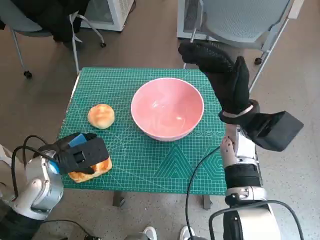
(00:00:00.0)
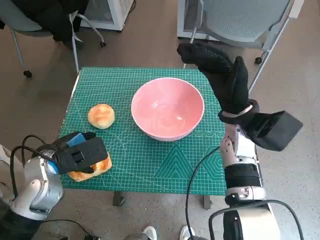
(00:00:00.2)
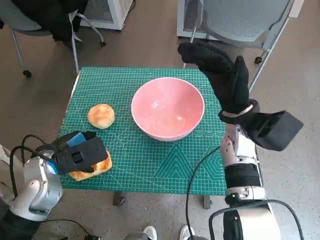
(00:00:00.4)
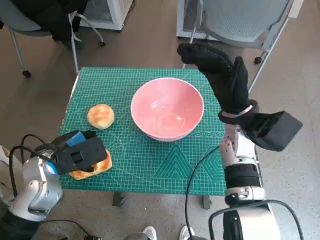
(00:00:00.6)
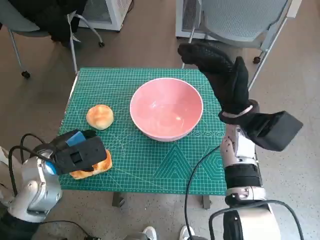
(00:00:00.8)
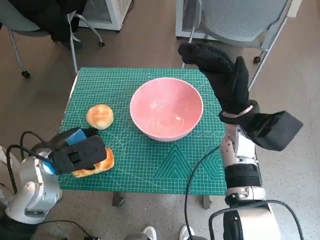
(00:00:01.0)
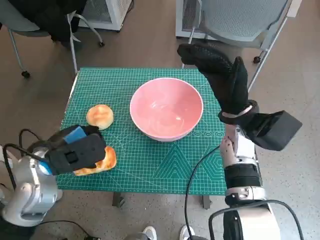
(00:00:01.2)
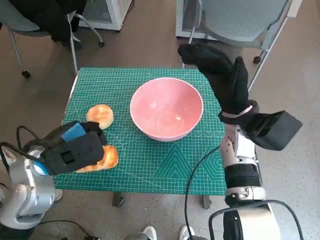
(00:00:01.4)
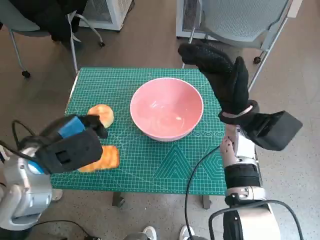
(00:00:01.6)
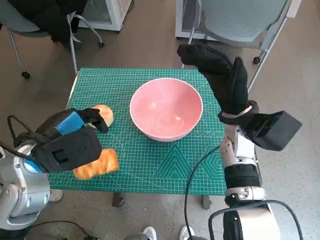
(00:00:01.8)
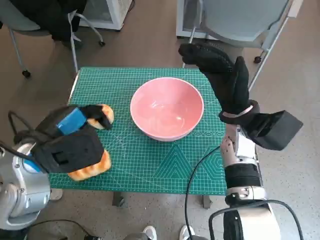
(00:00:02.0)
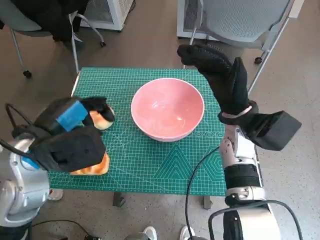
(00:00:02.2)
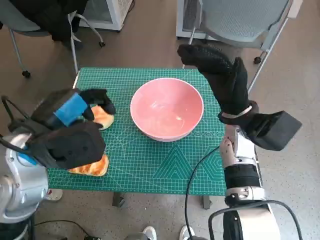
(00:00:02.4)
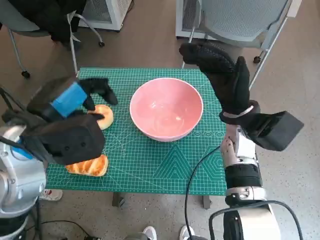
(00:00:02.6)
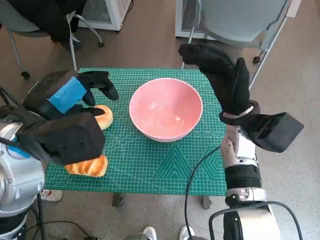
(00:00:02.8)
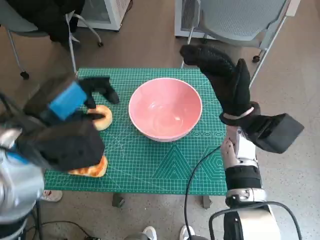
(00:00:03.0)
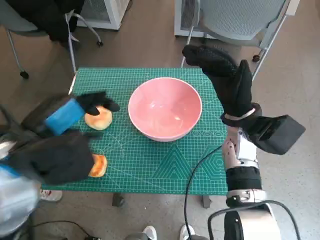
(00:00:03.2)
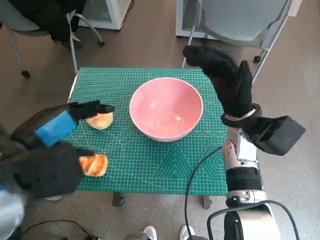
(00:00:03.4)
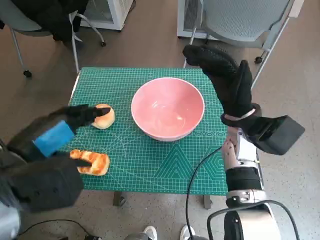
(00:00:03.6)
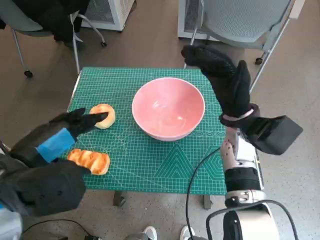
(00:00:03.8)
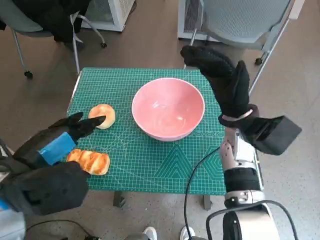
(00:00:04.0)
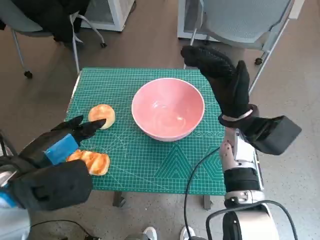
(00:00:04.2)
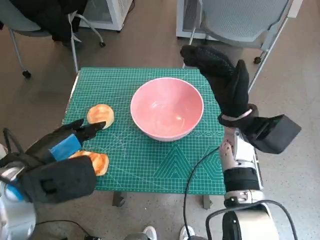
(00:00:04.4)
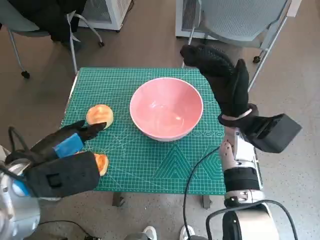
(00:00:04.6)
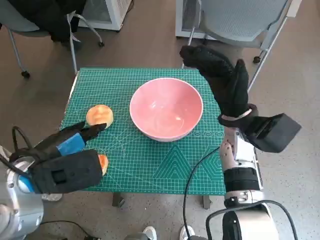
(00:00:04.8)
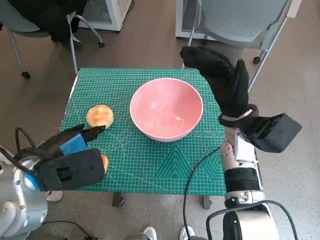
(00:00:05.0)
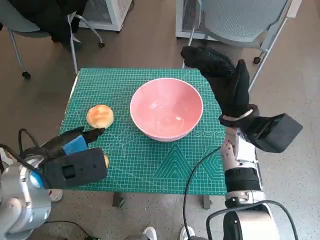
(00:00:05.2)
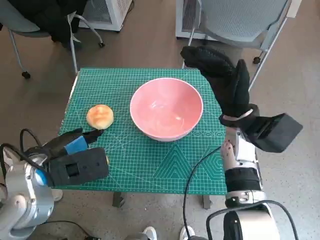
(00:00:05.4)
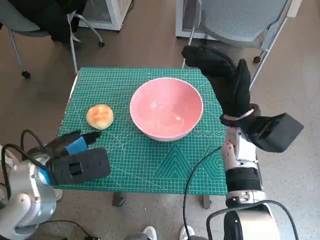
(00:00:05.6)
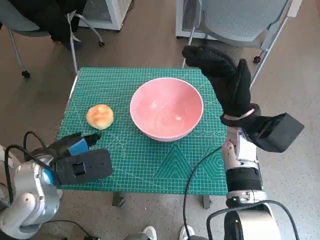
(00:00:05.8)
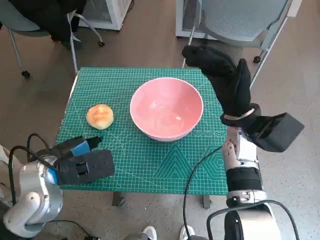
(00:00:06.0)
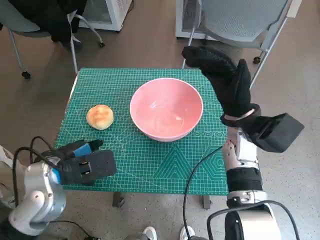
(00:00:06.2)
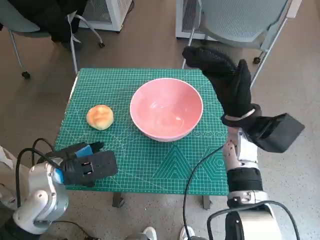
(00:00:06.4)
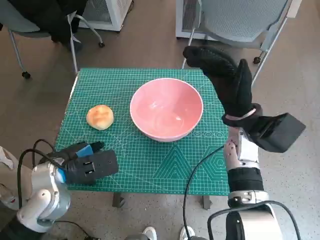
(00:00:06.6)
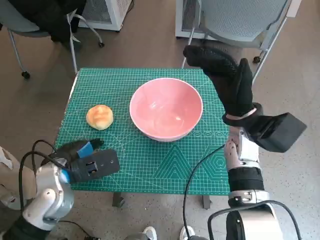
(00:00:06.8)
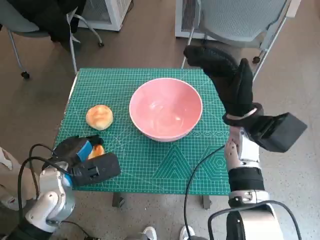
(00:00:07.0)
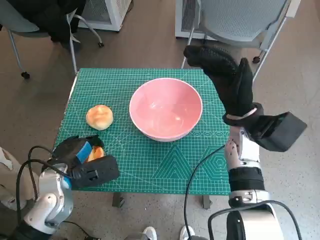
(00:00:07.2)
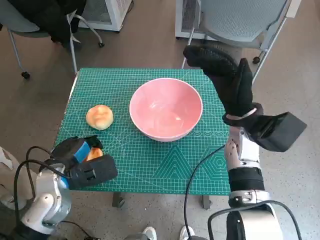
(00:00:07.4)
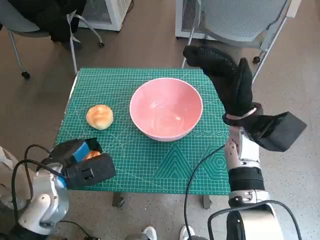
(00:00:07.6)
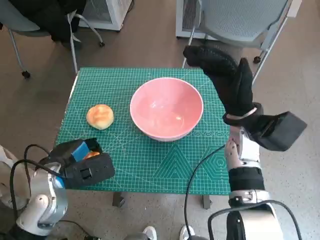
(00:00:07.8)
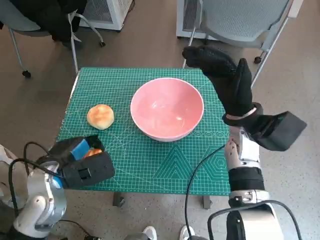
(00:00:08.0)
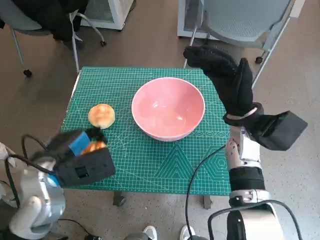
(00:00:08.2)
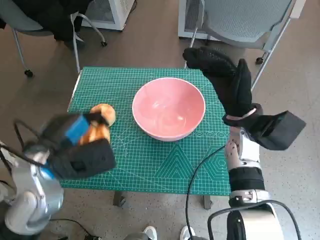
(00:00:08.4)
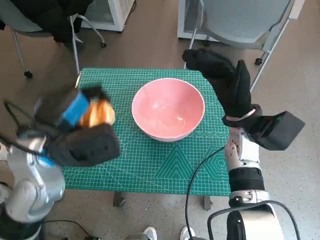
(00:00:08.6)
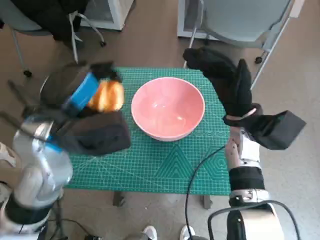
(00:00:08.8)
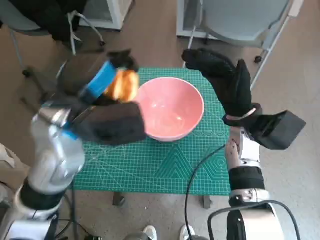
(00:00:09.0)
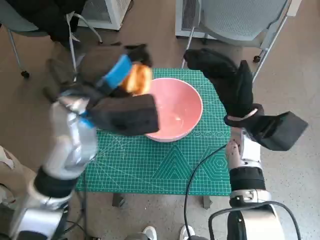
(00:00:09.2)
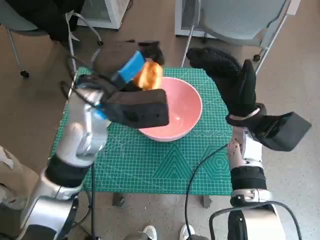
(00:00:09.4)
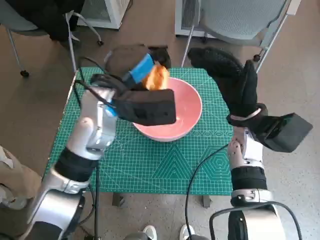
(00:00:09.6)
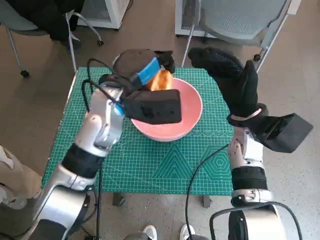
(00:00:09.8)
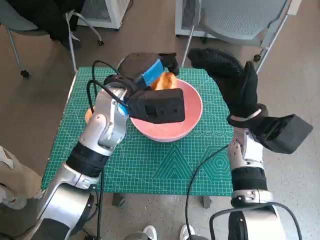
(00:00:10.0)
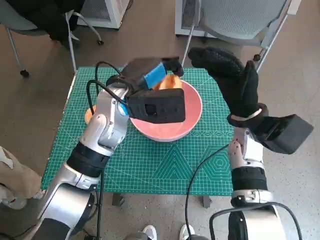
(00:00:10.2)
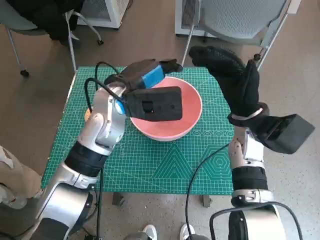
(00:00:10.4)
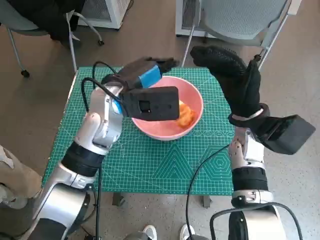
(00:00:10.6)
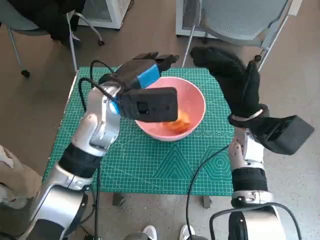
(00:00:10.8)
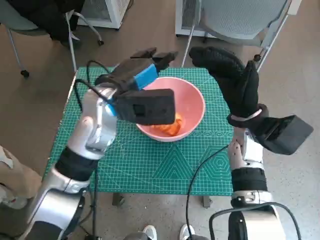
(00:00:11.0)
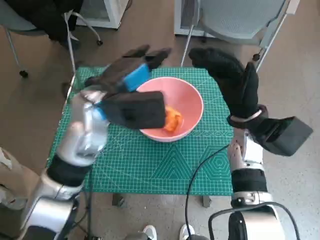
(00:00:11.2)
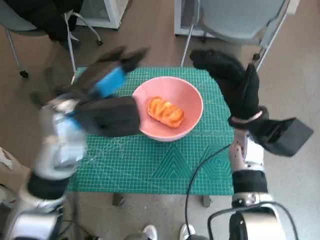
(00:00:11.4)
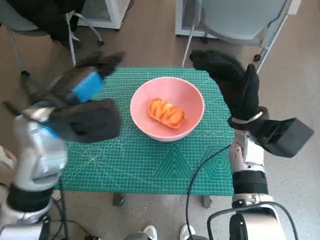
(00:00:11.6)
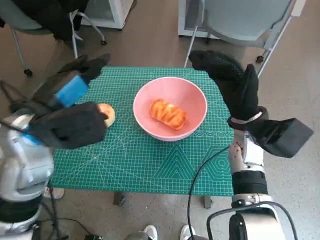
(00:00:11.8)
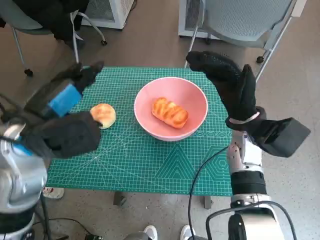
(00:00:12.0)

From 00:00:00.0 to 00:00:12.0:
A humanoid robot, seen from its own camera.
Step, from 00:00:00.0 to 00:00:07.6: Grasp the long bread with left hand.
Step, from 00:00:07.8 to 00:00:10.4: Place the long bread in pink bowl with left hand.
From 00:00:00.0 to 00:00:01.6: The left hand travels upward by some 5 cm.
From 00:00:01.6 to 00:00:03.0: The left hand travels upward by approximately 10 cm.
From 00:00:03.0 to 00:00:04.4: The left hand moves some 5 cm.
From 00:00:04.4 to 00:00:06.0: The left hand shifts some 5 cm downward.
From 00:00:06.0 to 00:00:07.6: The left hand travels downward by roughly 5 cm.
From 00:00:07.6 to 00:00:09.0: The left hand shifts about 15 cm upward and to the right.
From 00:00:09.0 to 00:00:10.4: The left hand heads forward and to the right, covering roughly 10 cm.
From 00:00:10.4 to 00:00:12.0: The left hand heads to the left and backward, covering some 15 cm.

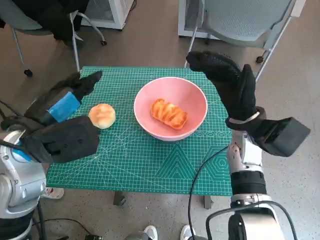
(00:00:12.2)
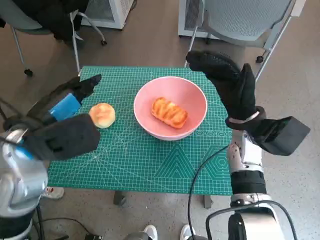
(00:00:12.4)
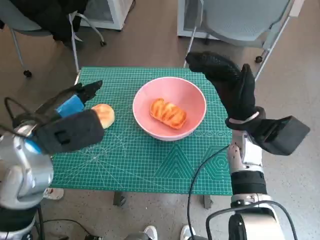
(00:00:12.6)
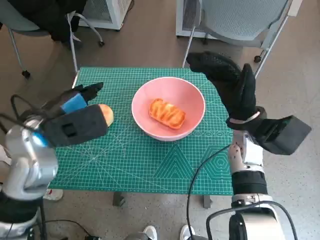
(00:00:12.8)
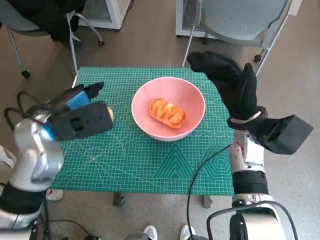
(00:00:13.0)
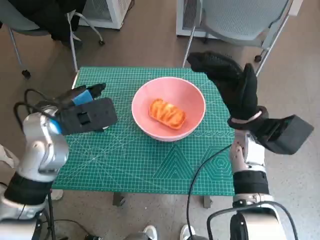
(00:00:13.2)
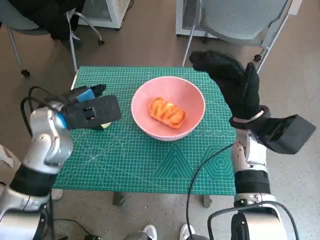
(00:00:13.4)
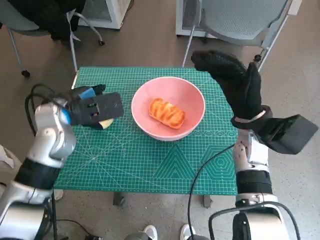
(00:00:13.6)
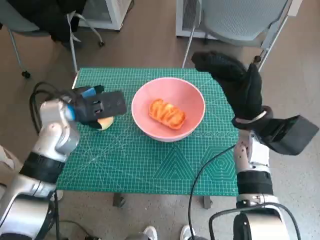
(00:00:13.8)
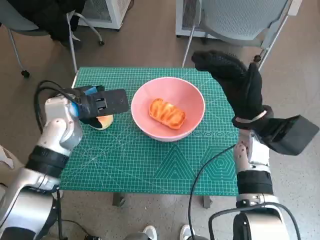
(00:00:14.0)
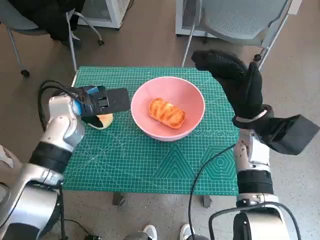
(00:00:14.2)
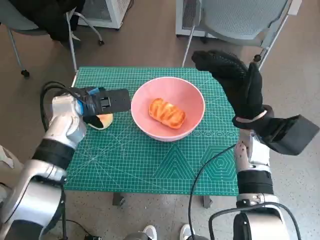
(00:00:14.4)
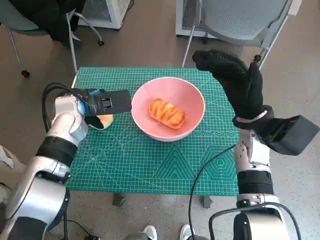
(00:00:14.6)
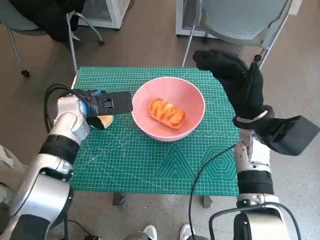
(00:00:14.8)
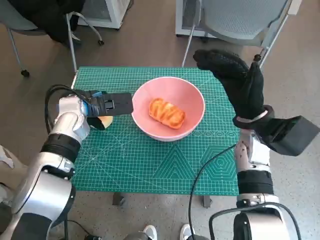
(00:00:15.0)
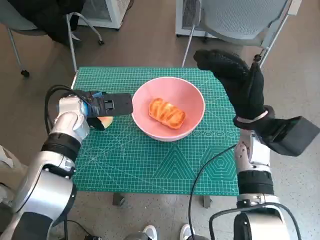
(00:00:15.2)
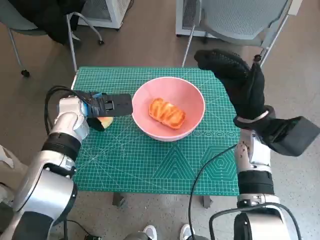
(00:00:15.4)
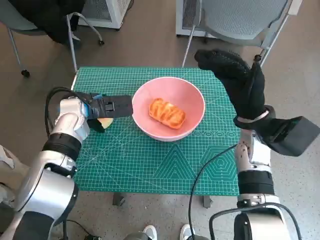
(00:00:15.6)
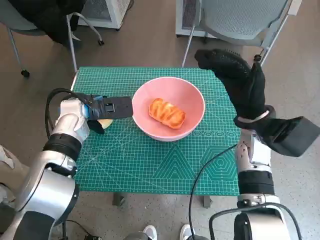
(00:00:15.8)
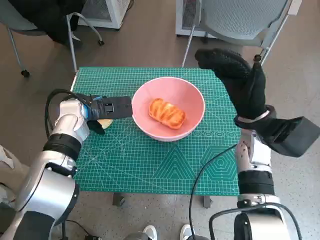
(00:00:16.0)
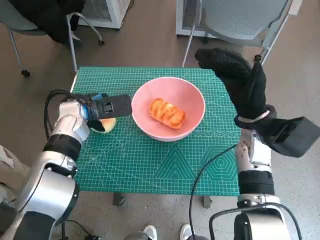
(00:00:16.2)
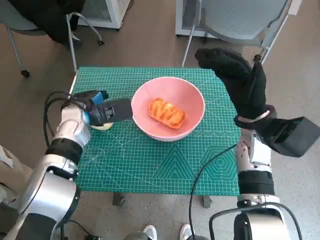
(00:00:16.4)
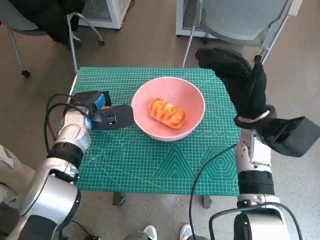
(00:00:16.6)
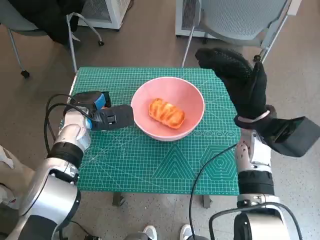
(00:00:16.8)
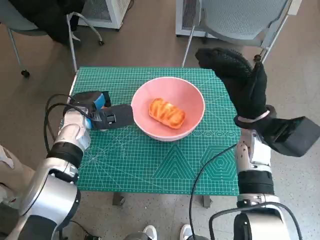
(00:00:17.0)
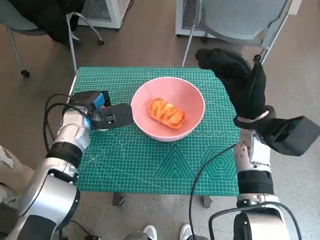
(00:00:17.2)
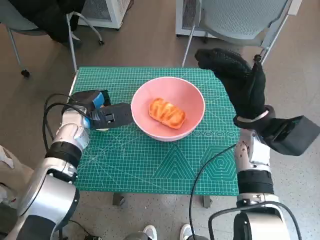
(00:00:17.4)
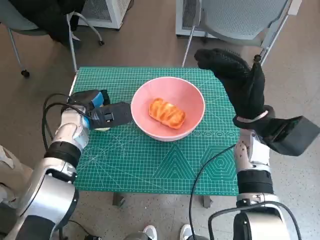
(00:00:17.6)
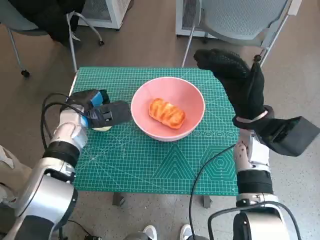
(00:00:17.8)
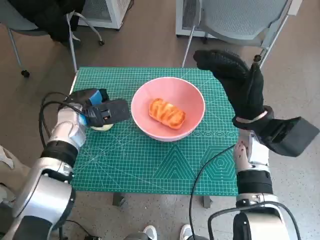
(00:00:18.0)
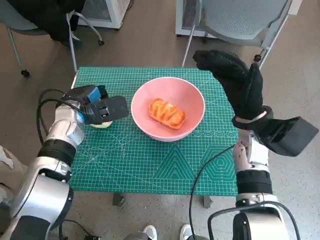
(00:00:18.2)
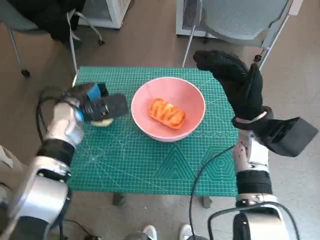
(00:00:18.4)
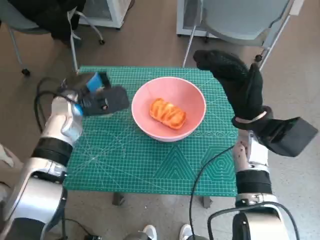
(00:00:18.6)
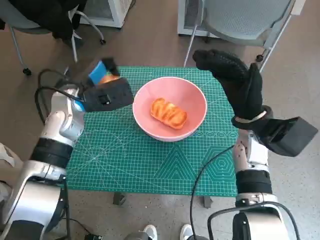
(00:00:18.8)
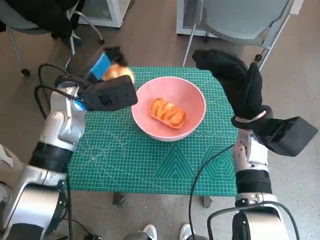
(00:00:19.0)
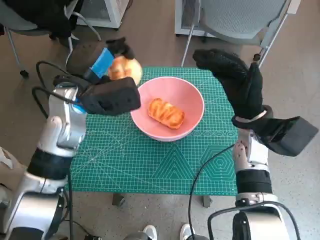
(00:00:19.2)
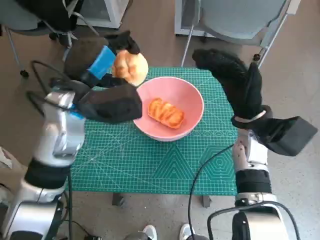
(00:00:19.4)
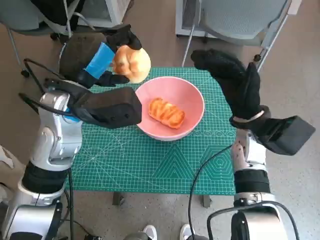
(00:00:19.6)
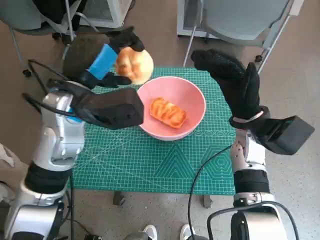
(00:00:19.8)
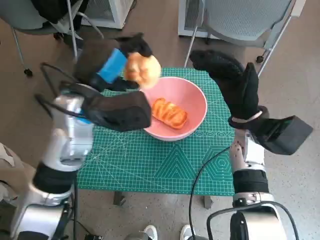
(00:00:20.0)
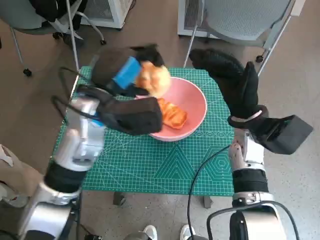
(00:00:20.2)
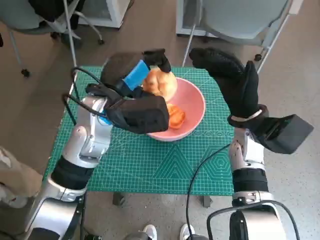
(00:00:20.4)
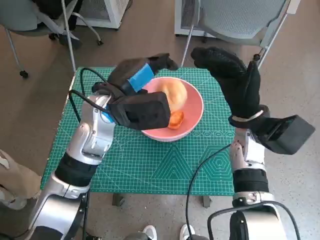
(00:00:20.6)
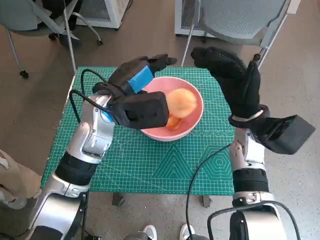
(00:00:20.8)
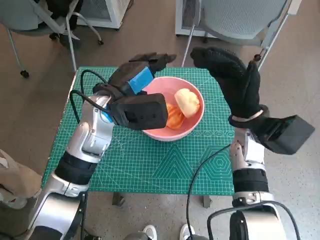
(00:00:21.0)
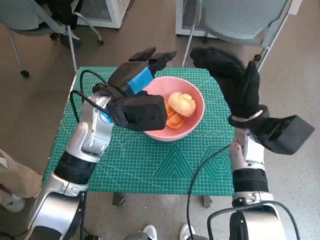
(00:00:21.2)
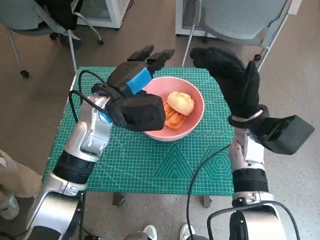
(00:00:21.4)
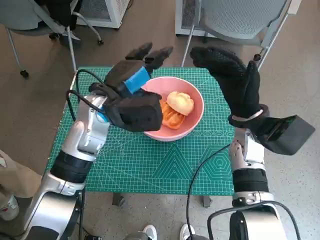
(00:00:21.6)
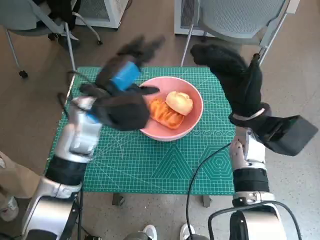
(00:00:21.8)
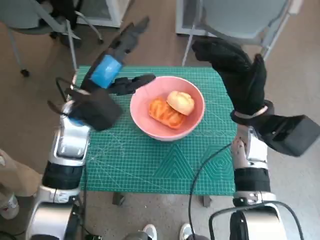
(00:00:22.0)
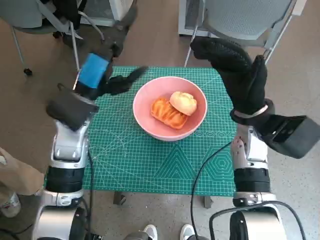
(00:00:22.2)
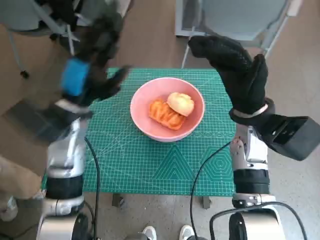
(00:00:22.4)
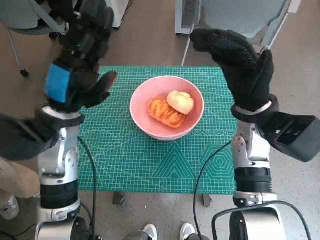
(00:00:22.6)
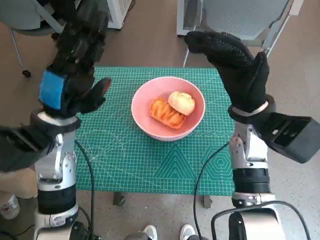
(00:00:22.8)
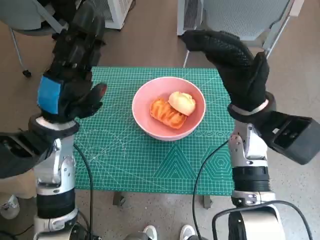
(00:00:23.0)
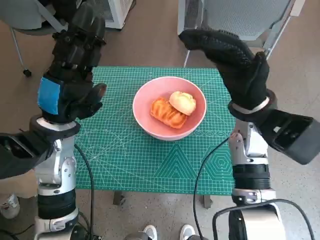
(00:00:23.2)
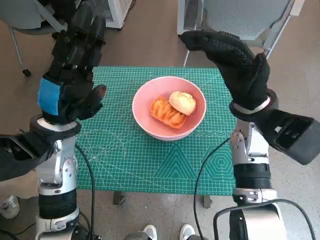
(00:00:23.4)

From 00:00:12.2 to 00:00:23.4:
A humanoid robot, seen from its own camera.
Step, from 00:00:12.2 to 00:00:16.6: Grasp the round bread with left hand.
Step, from 00:00:16.8 to 00:00:21.0: Place the round bread in pink bowl with left hand.
From 00:00:12.2 to 00:00:13.8: The left hand shifts approximately 10 cm forward.
From 00:00:13.8 to 00:00:15.4: The left hand ends up roughly 5 cm from where it was.
From 00:00:15.4 to 00:00:17.0: The hands make only small movements.
From 00:00:17.0 to 00:00:18.6: There are only small adjustments of the hands.
From 00:00:18.6 to 00:00:20.2: The left hand moves to the right, upward and backward, some 10 cm.
From 00:00:21.8 to 00:00:23.4: The left hand travels backward and to the left by roughly 10 cm.
